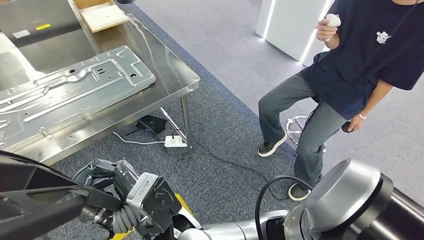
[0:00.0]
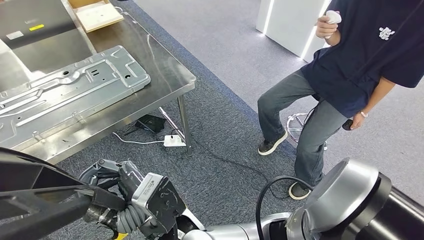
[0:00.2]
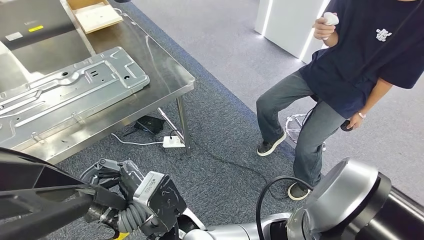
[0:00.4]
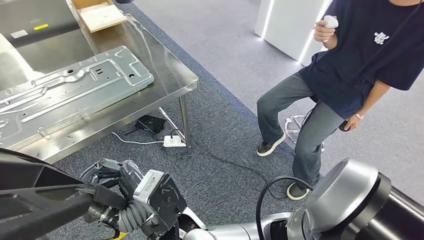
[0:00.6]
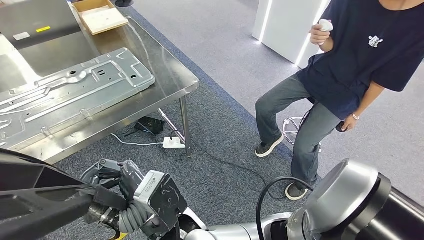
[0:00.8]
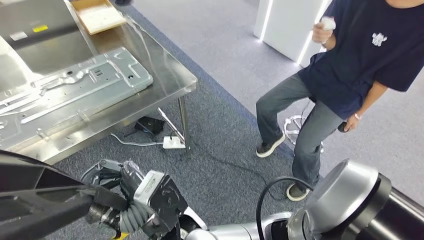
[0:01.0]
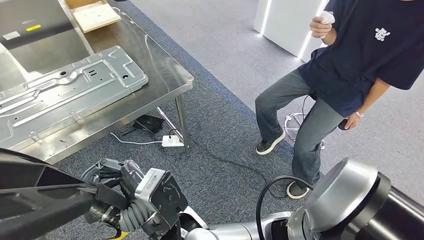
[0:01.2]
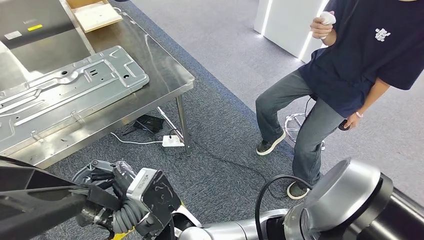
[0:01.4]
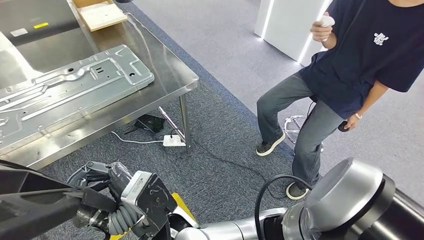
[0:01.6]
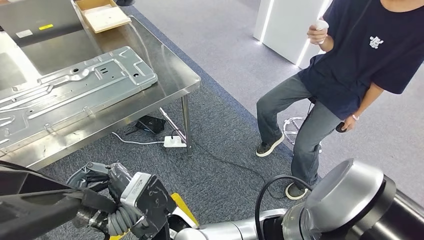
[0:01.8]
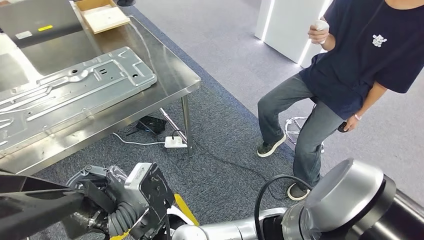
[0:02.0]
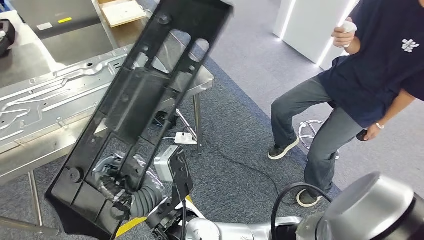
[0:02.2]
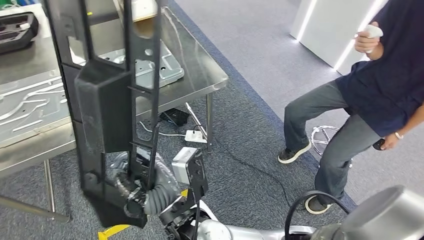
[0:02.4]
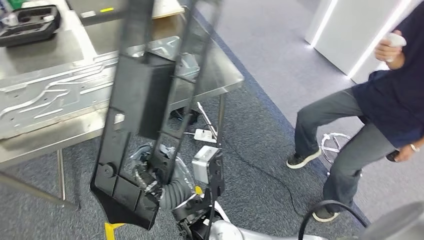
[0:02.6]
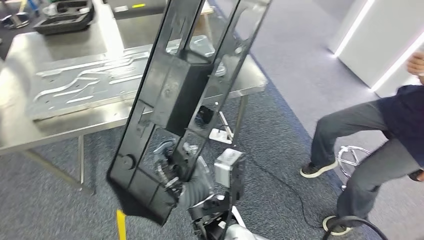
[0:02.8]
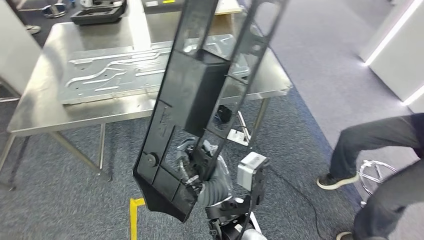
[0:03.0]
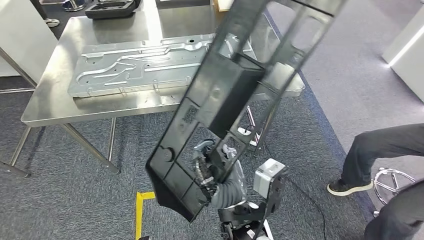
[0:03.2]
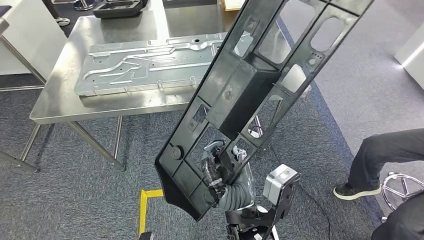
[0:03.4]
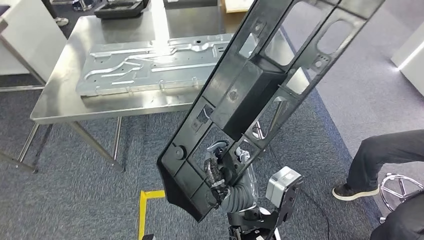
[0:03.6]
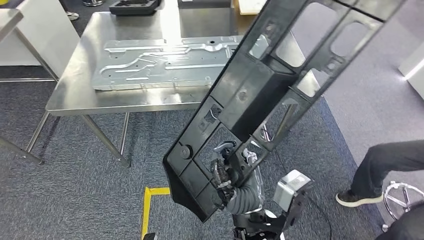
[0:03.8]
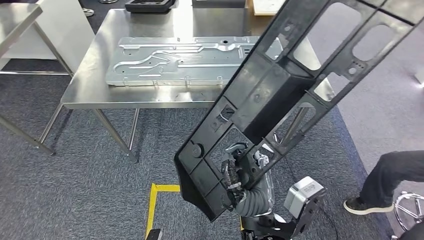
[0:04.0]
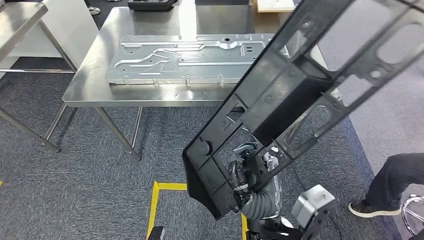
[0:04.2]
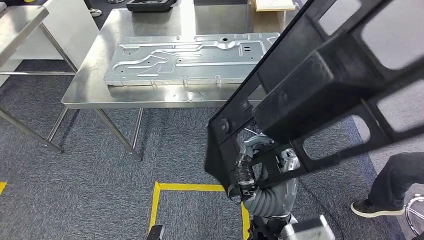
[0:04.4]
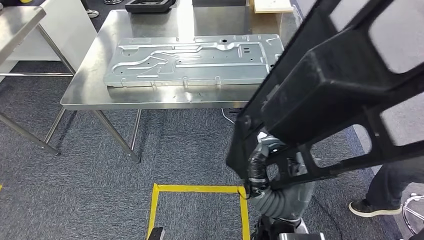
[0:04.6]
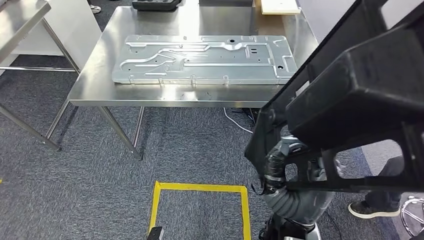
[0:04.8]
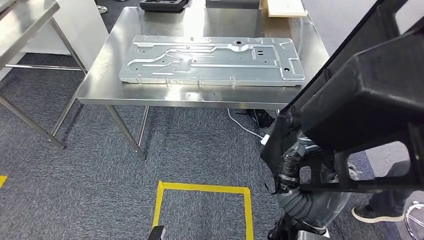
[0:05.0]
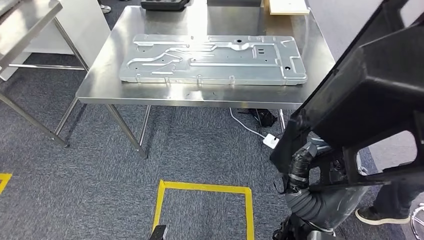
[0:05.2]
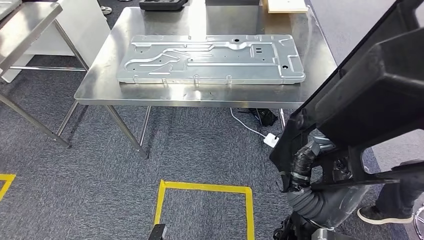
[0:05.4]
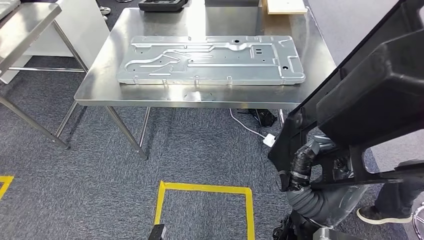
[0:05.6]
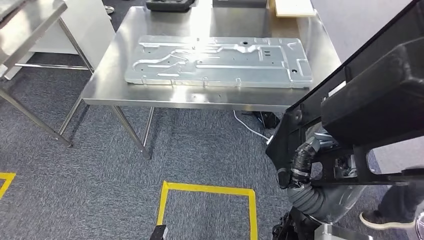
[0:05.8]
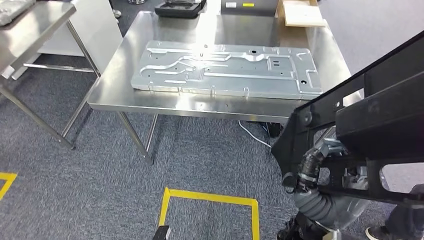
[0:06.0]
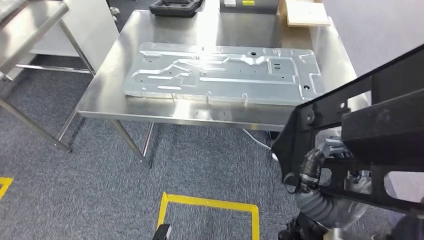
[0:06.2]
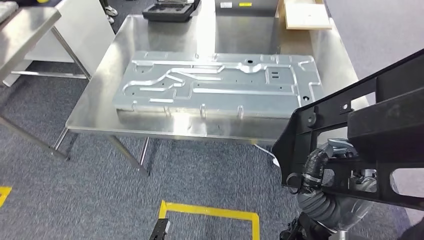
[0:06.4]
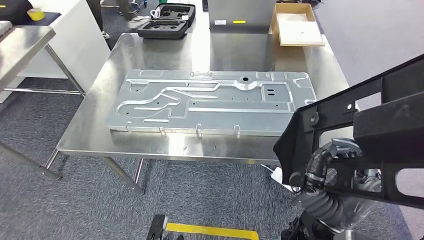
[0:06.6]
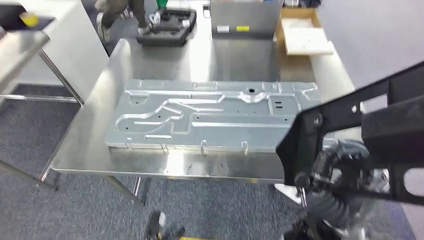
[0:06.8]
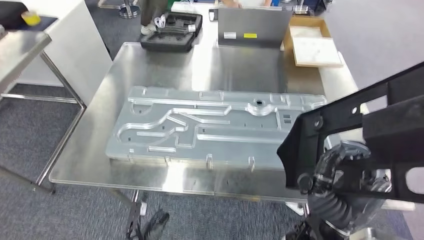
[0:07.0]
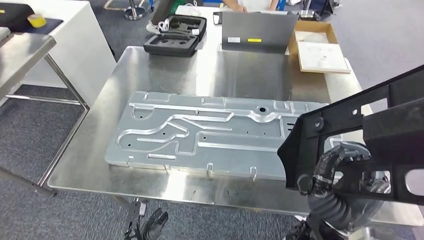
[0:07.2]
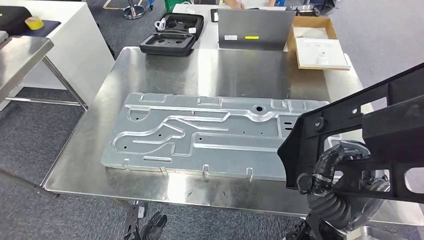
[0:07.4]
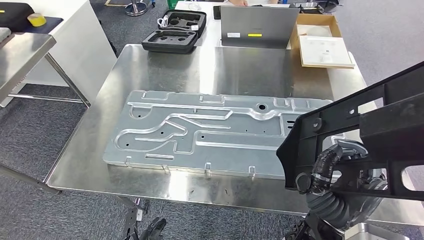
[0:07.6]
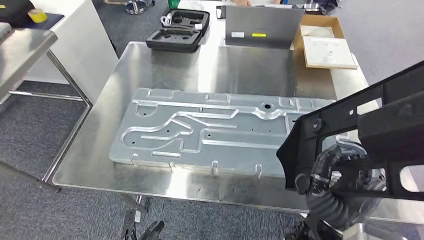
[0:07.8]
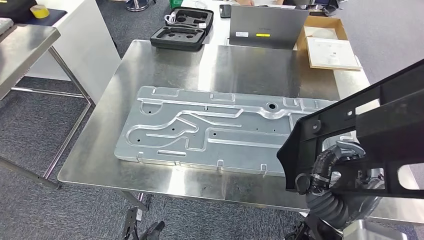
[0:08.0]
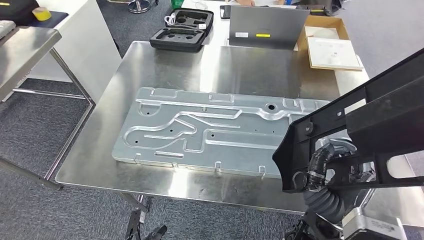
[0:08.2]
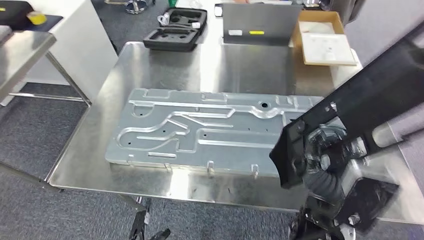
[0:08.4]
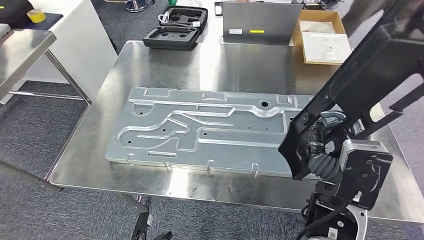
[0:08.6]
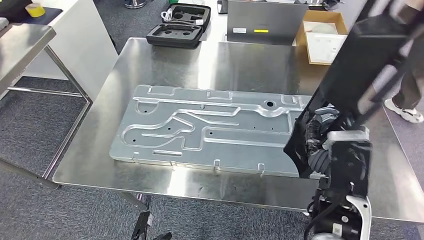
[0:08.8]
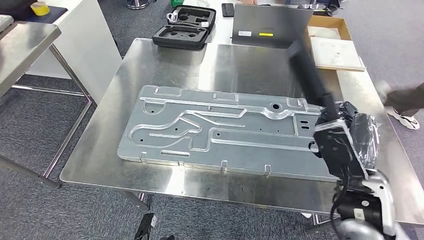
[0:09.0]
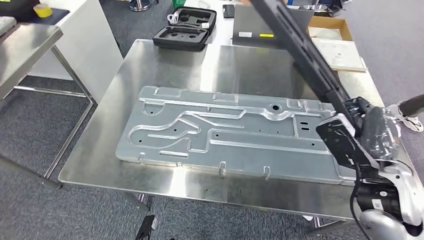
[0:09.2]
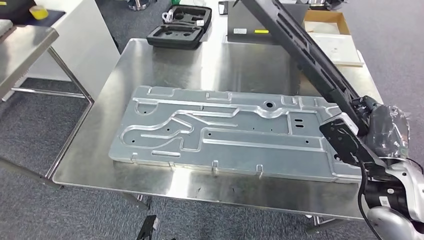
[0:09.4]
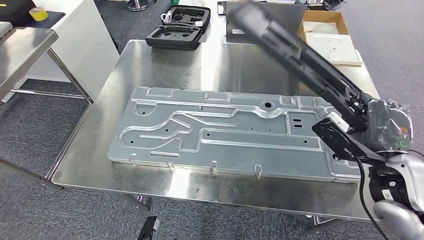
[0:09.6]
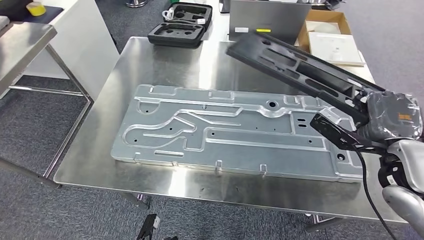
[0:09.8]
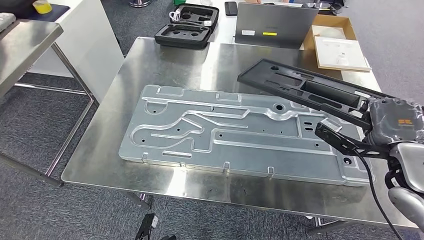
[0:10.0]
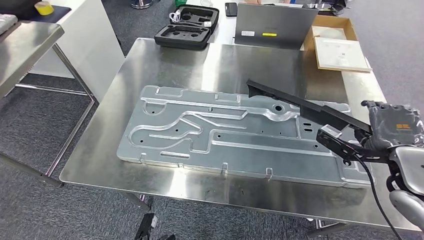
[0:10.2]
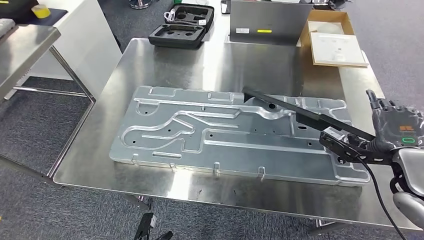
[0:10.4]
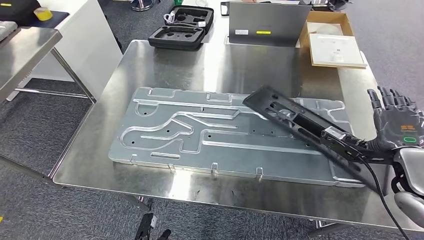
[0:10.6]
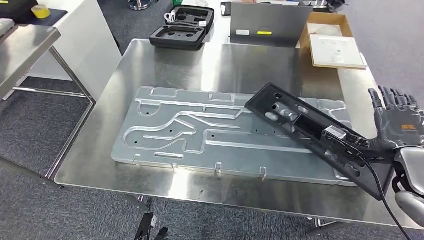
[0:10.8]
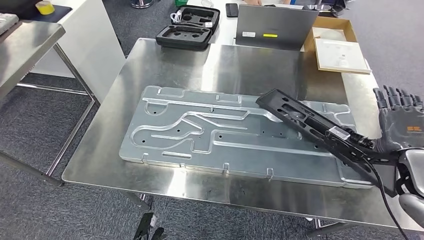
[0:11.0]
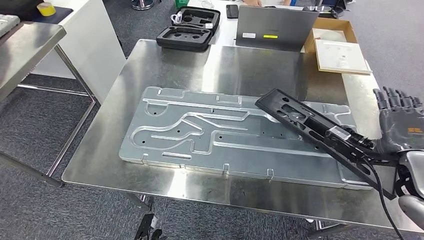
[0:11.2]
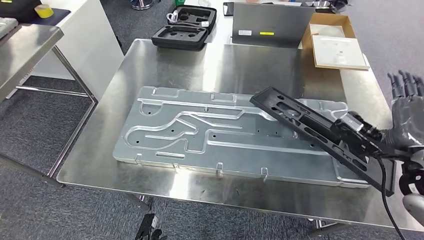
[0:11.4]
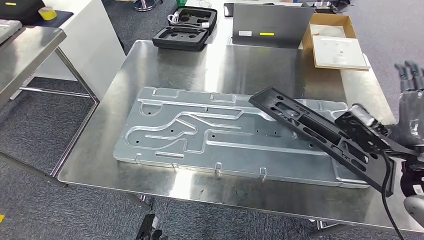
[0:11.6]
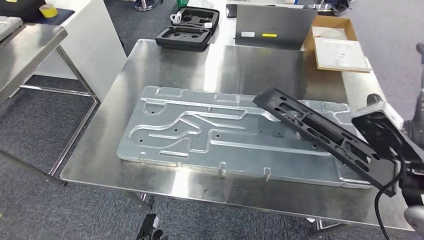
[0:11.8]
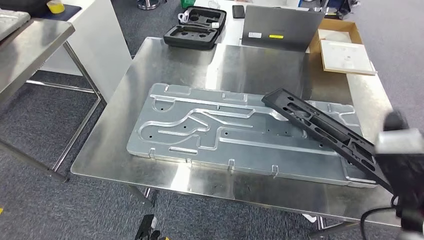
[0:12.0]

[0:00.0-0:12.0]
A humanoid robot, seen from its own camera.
0:00.0 to 0:01.6: Neither hand changes place.

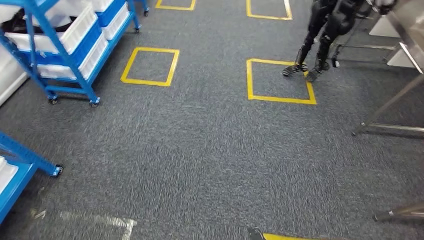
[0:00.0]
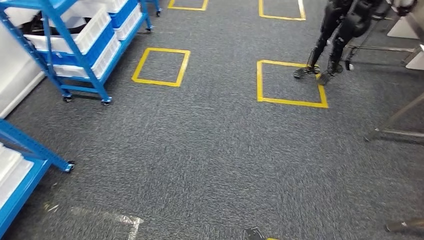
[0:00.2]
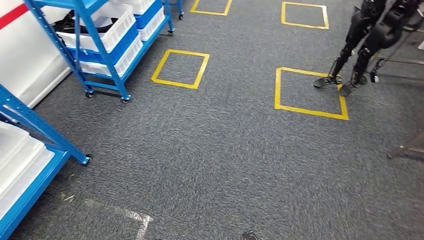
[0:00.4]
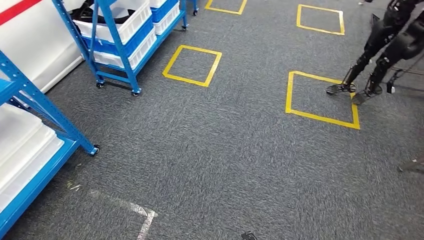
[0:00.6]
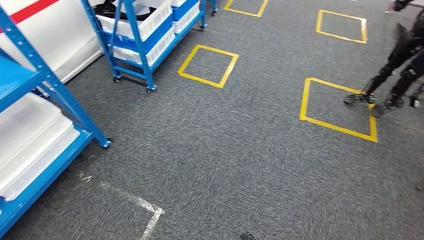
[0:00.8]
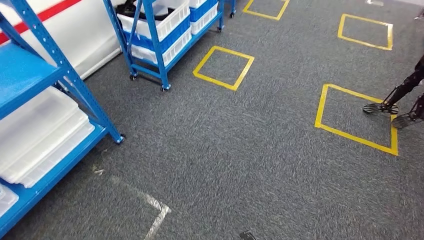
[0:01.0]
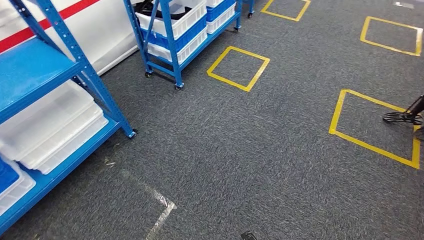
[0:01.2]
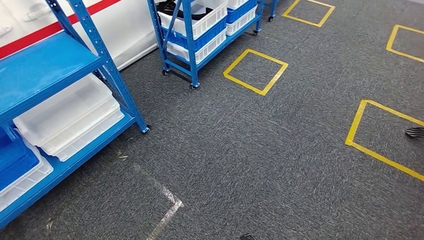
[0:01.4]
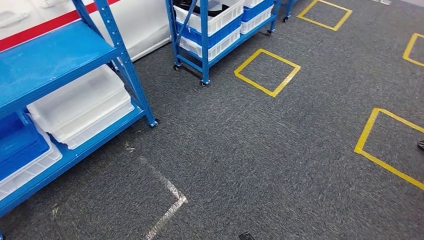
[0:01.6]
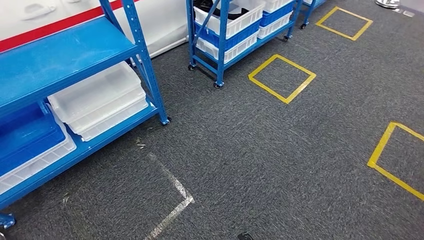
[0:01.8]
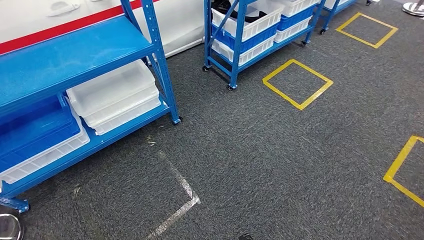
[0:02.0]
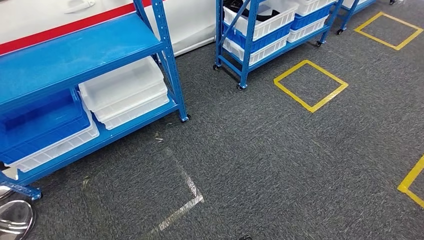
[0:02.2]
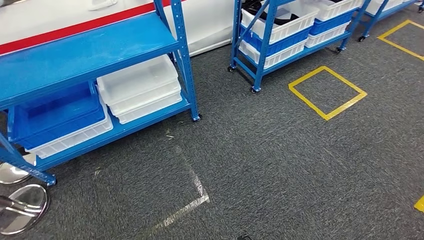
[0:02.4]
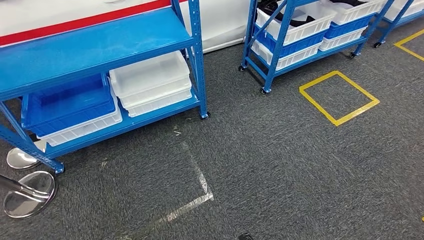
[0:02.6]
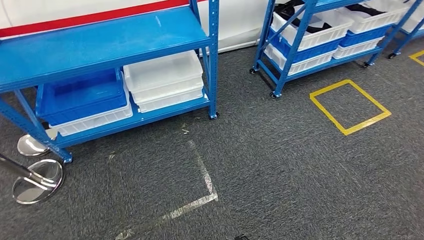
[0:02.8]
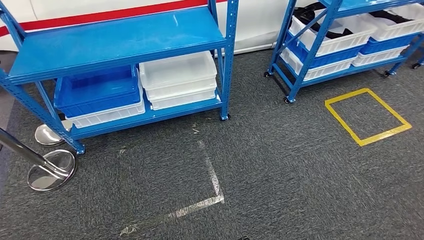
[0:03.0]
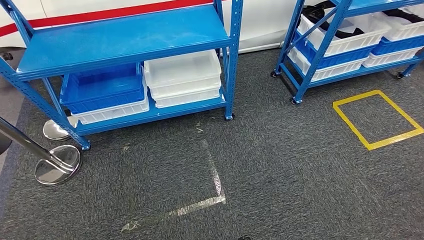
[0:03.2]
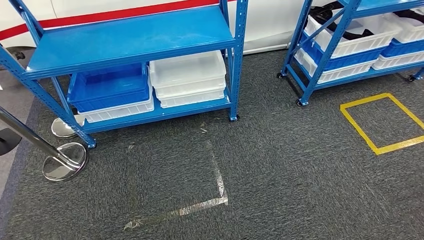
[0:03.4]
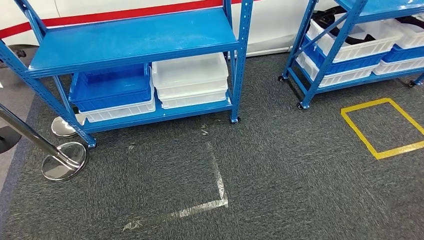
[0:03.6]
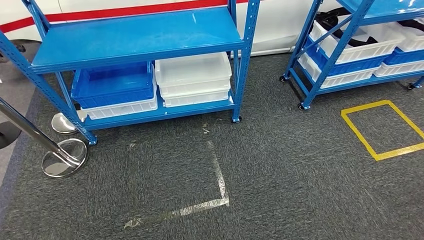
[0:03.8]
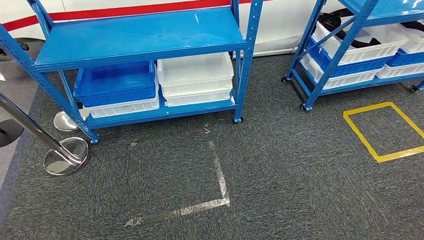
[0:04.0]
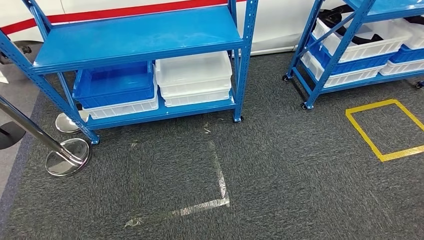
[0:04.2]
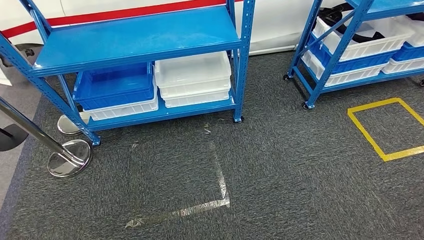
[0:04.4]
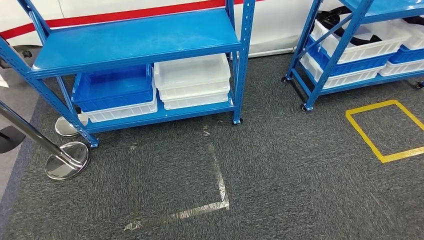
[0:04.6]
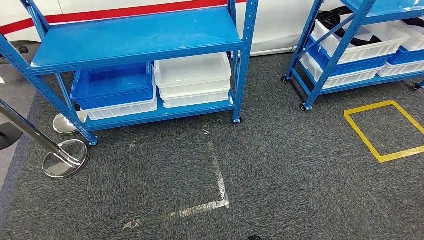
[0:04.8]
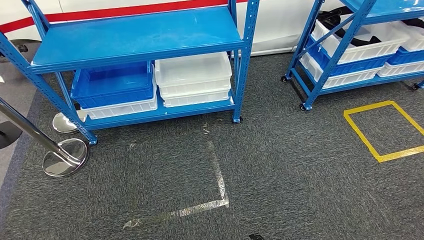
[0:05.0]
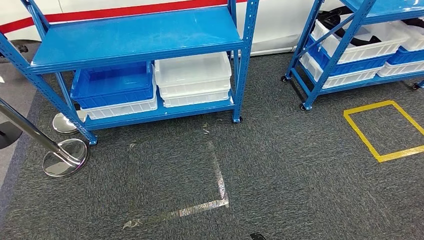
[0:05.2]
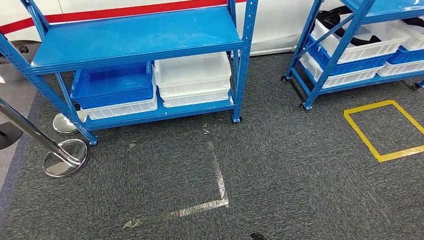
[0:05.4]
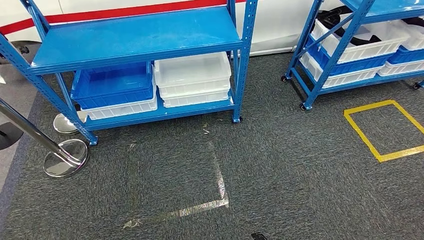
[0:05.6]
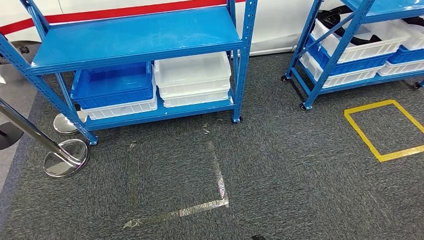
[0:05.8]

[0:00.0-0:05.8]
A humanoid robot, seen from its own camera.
Step, 0:00.0 to 0:05.8: Return to the initial position at the shelf.
0:04.4 to 0:05.8: The hands make only small movements.
